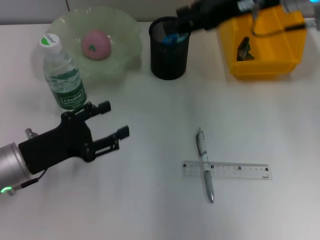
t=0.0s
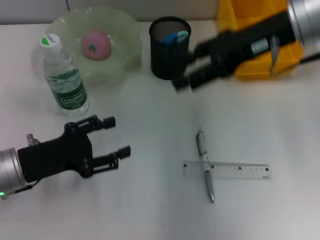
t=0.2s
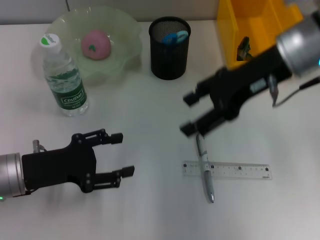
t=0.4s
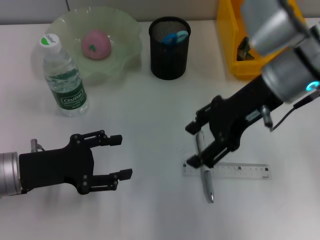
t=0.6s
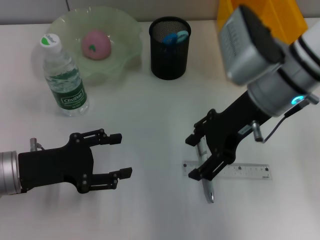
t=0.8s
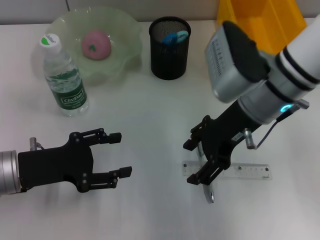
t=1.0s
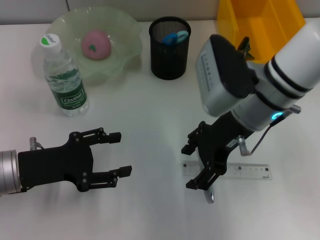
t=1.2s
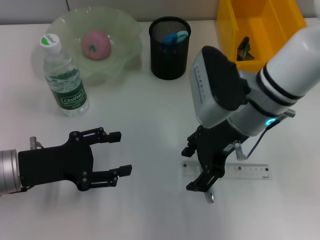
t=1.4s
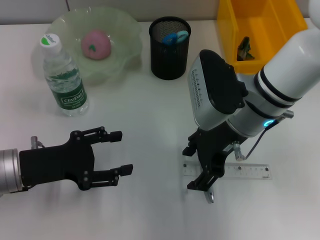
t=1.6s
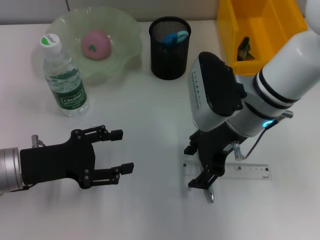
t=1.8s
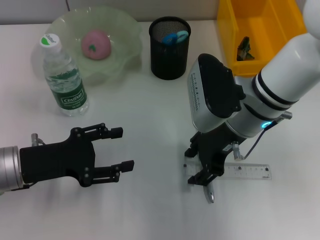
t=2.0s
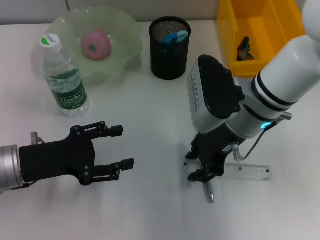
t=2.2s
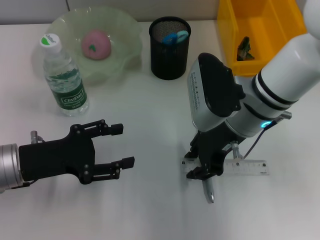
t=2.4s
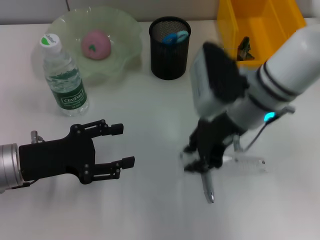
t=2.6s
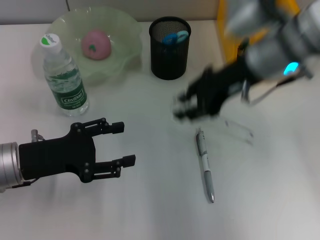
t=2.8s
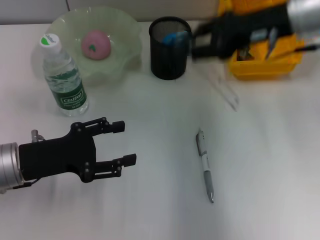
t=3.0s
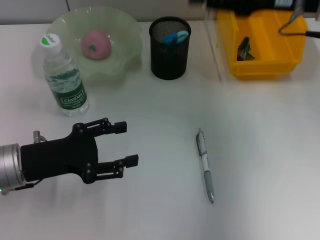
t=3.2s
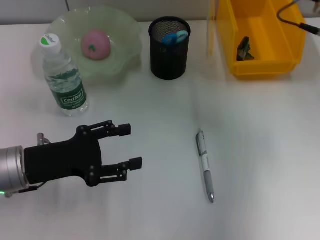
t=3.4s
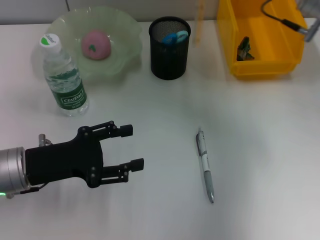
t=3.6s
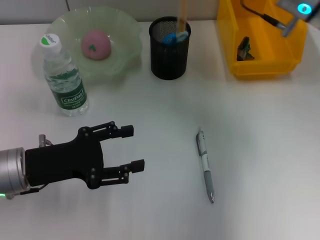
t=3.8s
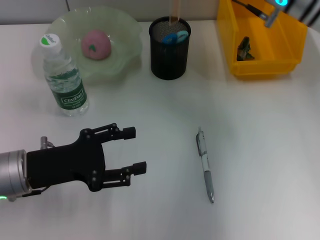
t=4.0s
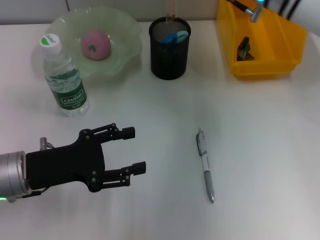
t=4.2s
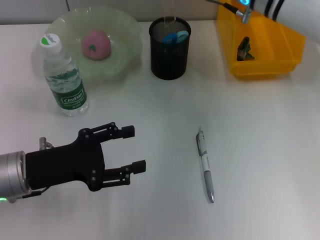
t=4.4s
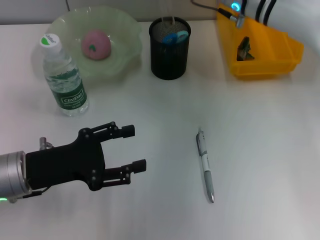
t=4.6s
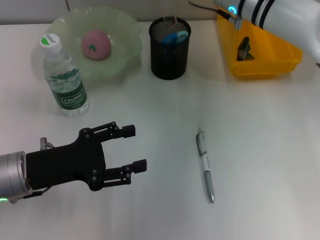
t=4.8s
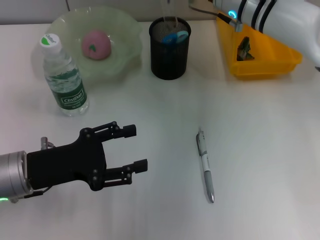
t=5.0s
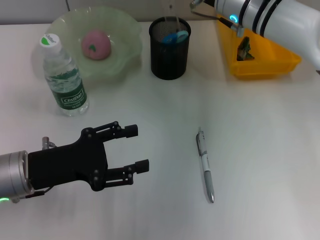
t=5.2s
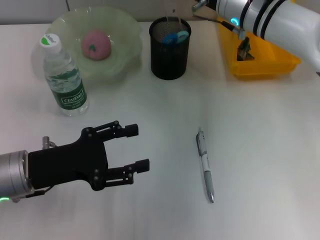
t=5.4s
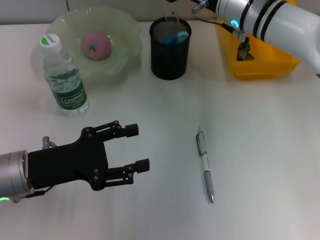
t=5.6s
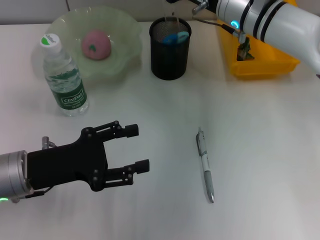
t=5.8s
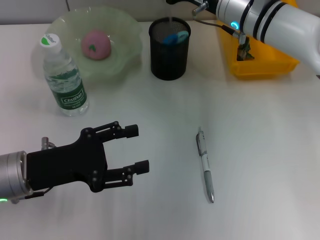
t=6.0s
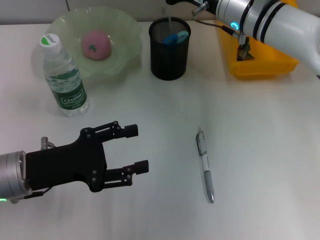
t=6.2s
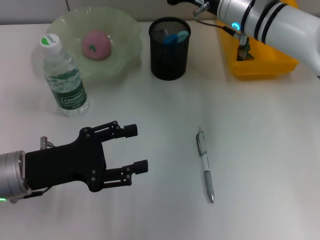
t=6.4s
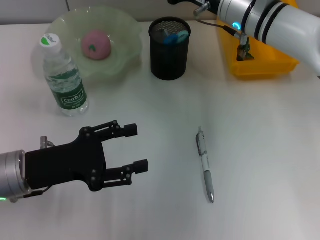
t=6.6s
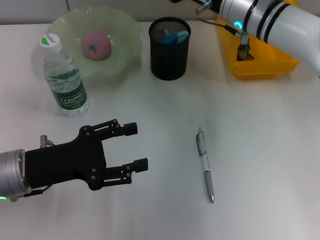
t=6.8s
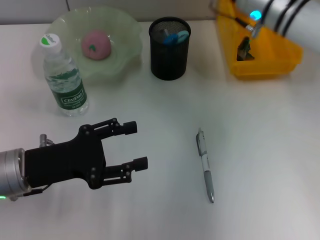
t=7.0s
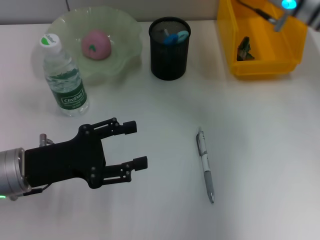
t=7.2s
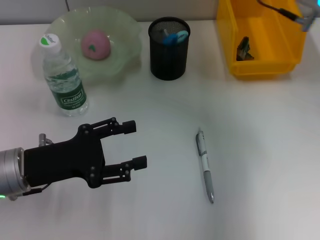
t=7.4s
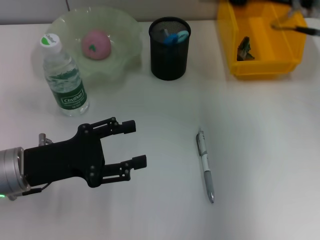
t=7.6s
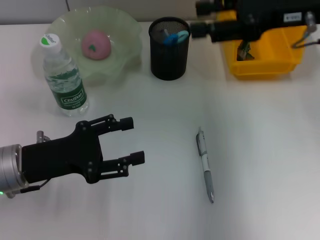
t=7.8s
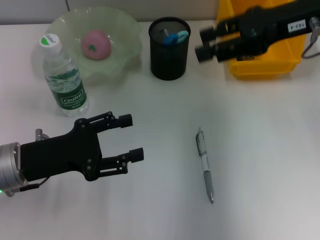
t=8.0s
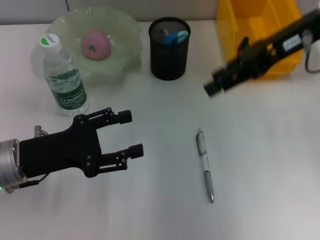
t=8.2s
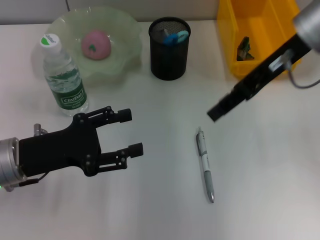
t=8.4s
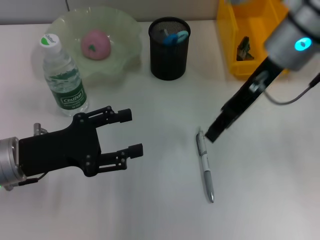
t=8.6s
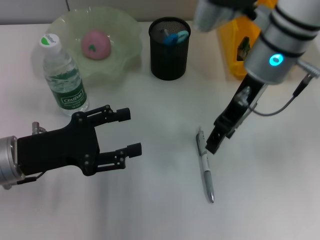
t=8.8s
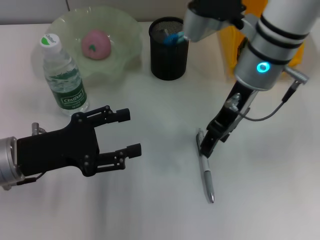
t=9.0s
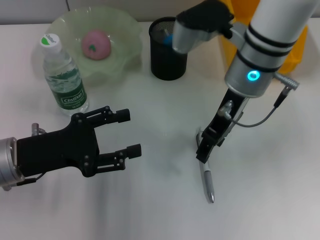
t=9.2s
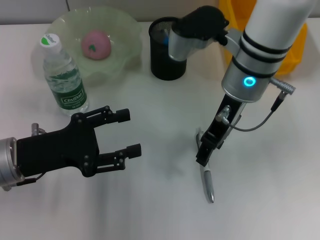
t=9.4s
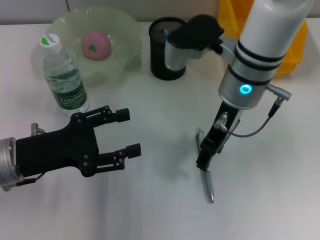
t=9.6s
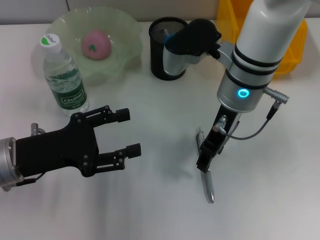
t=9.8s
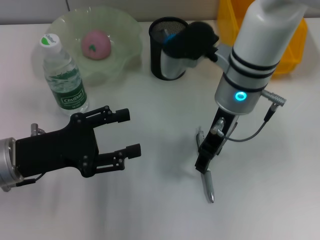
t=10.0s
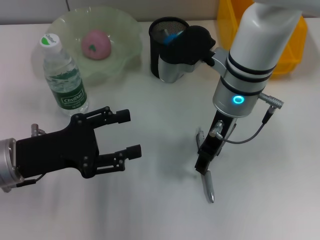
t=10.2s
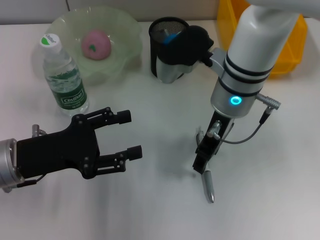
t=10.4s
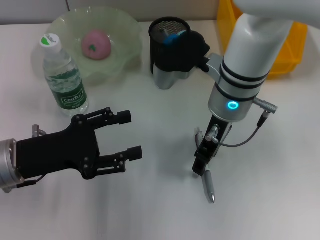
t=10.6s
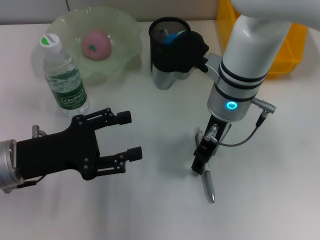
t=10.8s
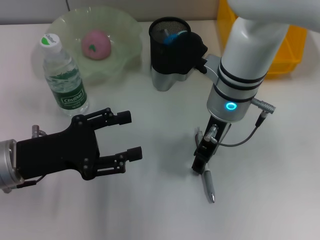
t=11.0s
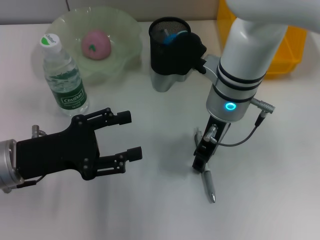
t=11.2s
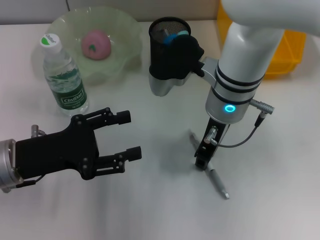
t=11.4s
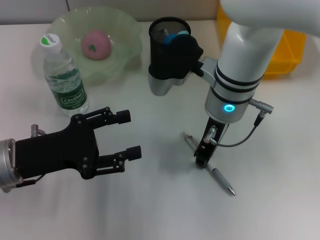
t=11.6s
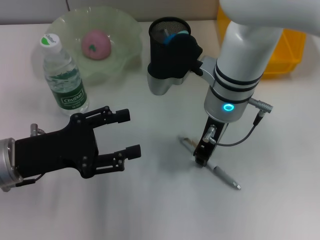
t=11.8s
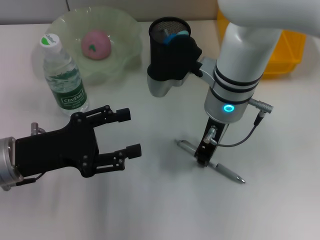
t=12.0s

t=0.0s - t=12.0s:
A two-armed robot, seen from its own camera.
Step, t=0.4s - t=2.2s: Grab the ruler with the right hand.
Step, t=2.4s - t=6.4s: Place the ruler into the pen holder with the right hand.
t=0.0s - t=1.6s: The right gripper moves downward, backward and to the left, approximately 15 cm.
t=1.6s - t=3.0s: The right gripper moves upward and to the right, about 10 cm, and closes.
t=3.0s - t=4.4s: The right gripper goes roughly 10 cm forward and to the left.
t=4.4s - t=6.0s: The grippers make only small movements.
t=6.0s - t=7.6s: The right gripper travels to the right, upward and backward by about 15 cm.
t=7.6s - t=9.0s: The right gripper moves to the left, approximately 10 cm.
t=9.0s - t=10.4s: The right gripper changes place by roughly 5 cm.
t=10.4s - t=12.0s: The right gripper closes its fingers.

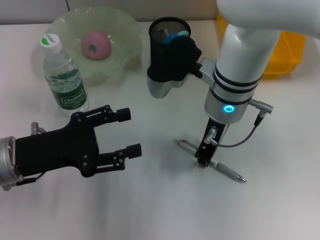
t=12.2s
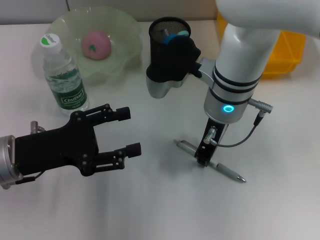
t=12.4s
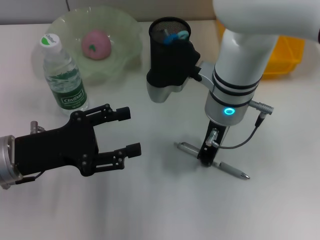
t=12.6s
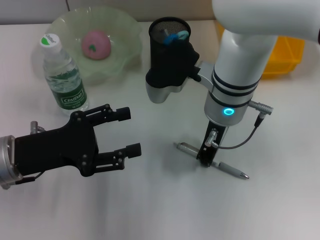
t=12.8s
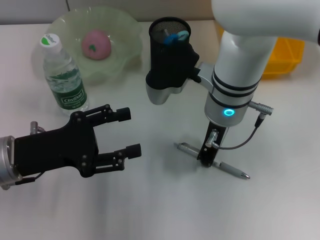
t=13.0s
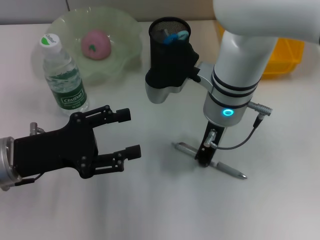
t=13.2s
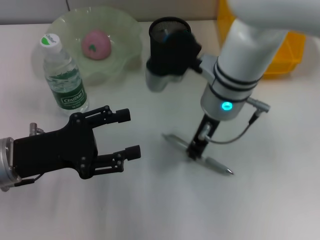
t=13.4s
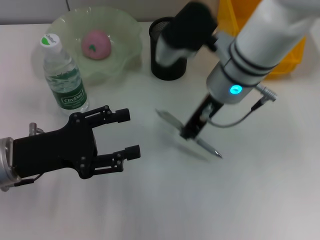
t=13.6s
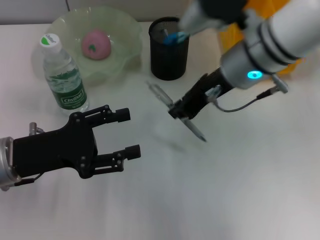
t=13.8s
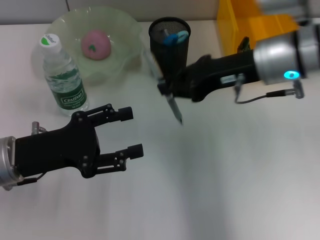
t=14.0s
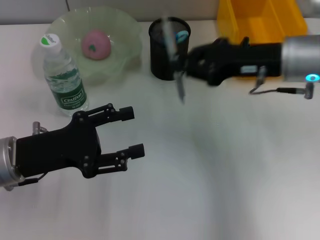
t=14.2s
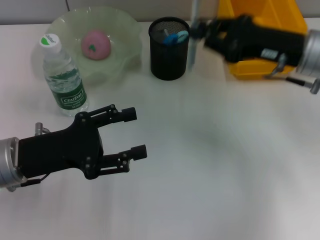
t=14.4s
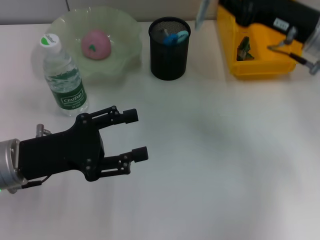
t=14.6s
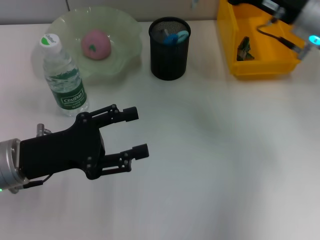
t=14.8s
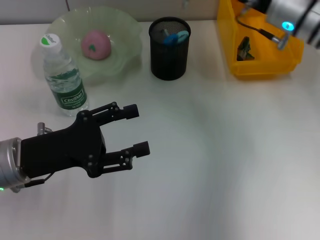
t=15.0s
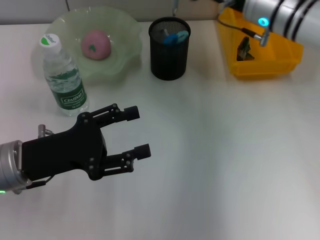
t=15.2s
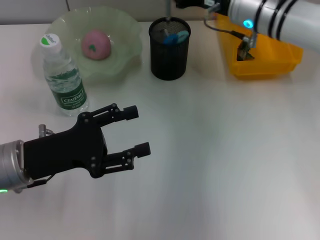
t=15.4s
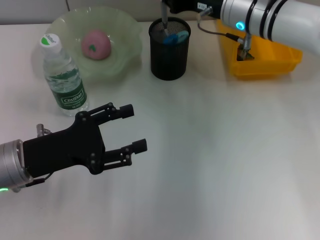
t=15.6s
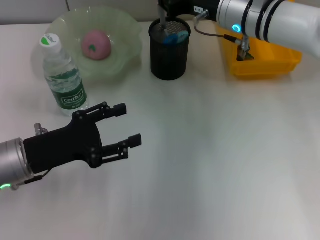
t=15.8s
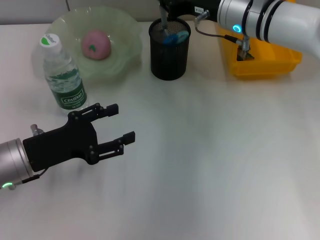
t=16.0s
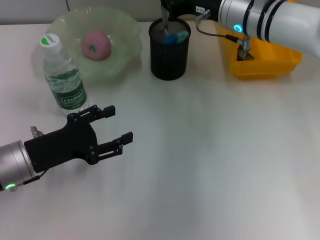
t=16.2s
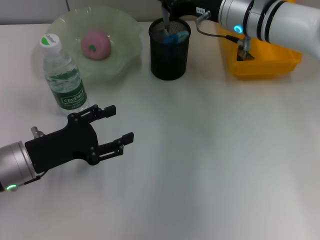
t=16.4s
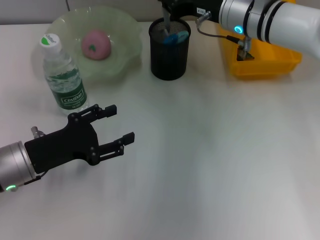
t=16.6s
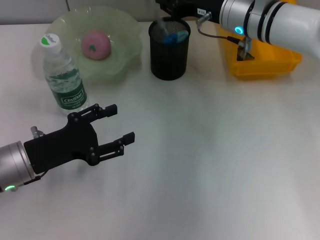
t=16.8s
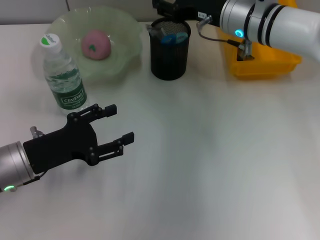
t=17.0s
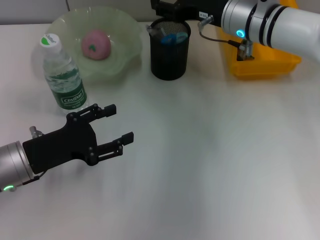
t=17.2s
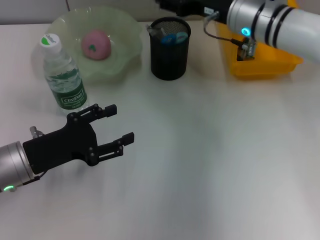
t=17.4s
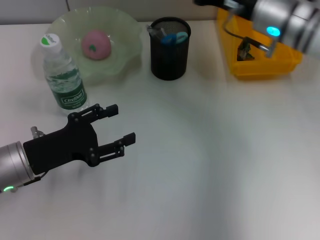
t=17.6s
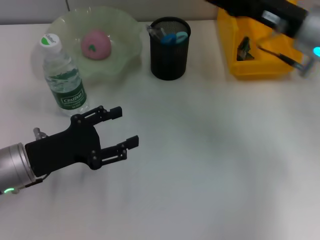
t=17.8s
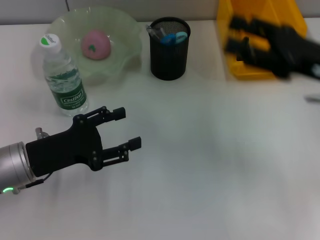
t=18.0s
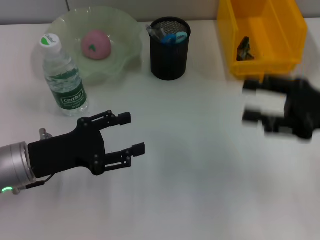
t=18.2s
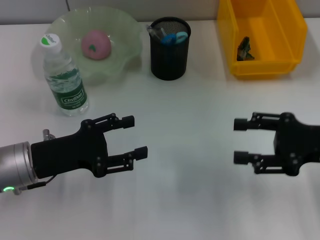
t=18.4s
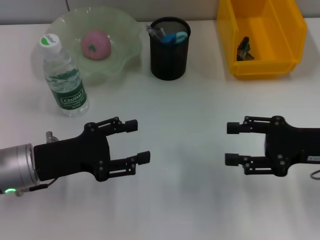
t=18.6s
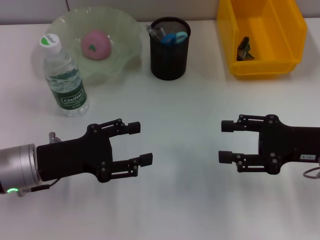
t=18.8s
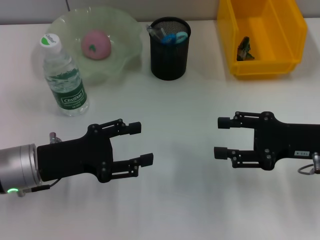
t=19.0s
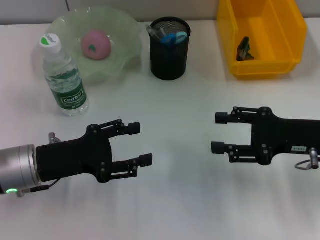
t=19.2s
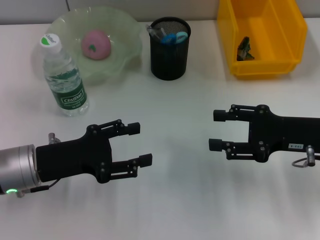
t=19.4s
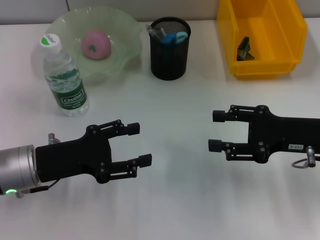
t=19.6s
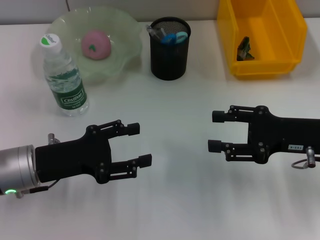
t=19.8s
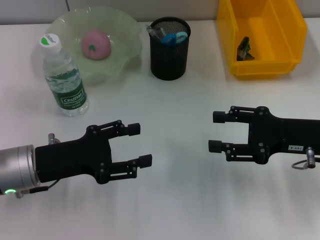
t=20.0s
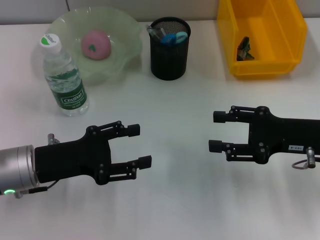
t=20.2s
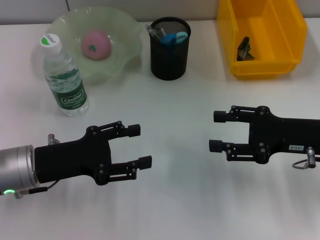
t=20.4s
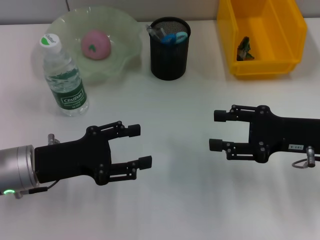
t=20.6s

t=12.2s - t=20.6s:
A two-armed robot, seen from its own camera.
Step, t=13.4s - t=17.2s: Place the gray spring-action pen into the pen holder with the right hand.
t=12.2s - t=13.6s: There are only small adjustments of the grippers.
t=13.6s - t=15.0s: The right gripper is displaced to the right and forward by approximately 10 cm.
t=15.0s - t=16.4s: The right gripper is displaced to the left by some 5 cm.
t=16.4s - t=17.8s: The right gripper moves to the right and backward, roughly 10 cm, and opens up.
t=17.8s - t=19.2s: The right gripper shifts some 10 cm backward, downward and to the right.
t=19.2s - t=20.6s: Both grippers stay about where they are.

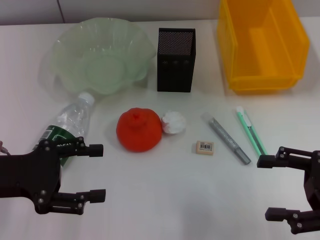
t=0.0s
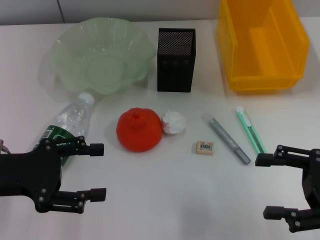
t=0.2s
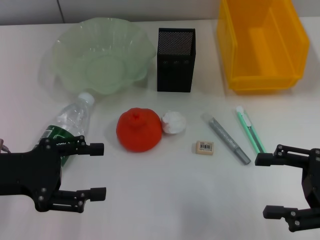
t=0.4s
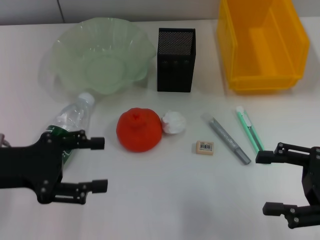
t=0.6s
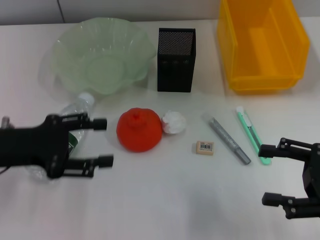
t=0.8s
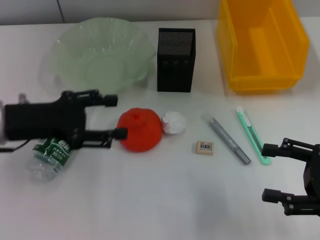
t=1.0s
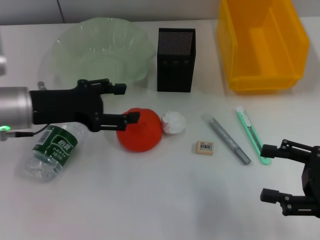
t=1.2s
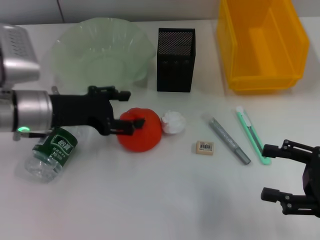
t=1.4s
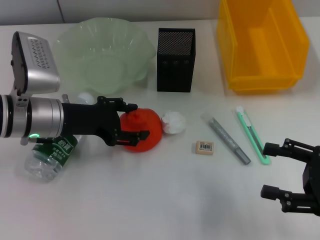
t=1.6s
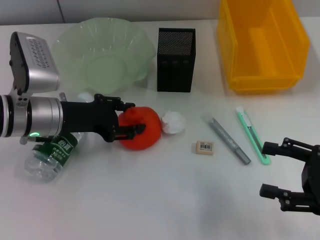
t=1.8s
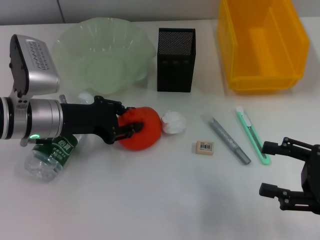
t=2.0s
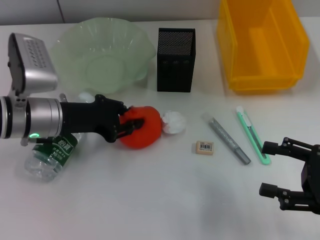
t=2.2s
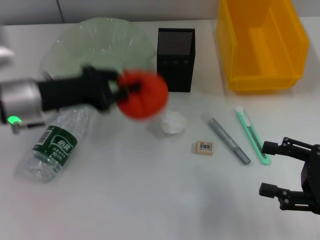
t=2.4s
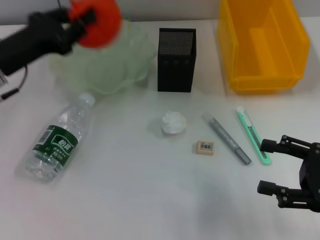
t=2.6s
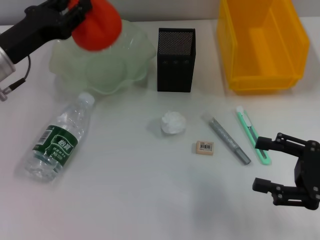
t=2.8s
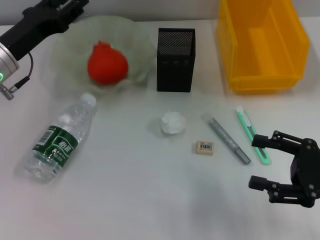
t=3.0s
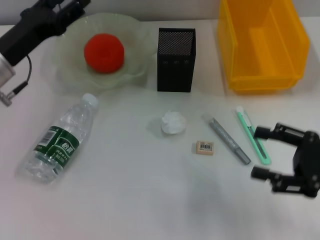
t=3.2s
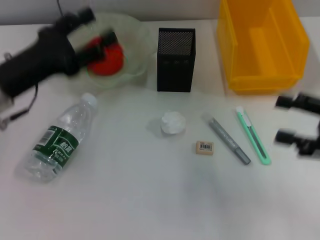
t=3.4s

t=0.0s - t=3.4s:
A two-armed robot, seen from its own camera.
Step, t=0.0s - t=2.0s: Grab the orange with the left hand.
Step, t=2.4s - t=3.2s: Place the orange into the fruit bowl with the left hand.
t=0.0s - t=1.6s: The left gripper goes some 15 cm forward and to the right.
t=1.6s - t=3.4s: The left gripper ends up some 5 cm from where it was, and closes and opens again. The right gripper heads upward, covering roughly 5 cm.
